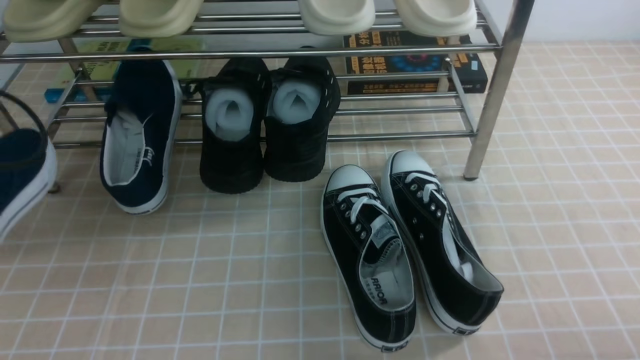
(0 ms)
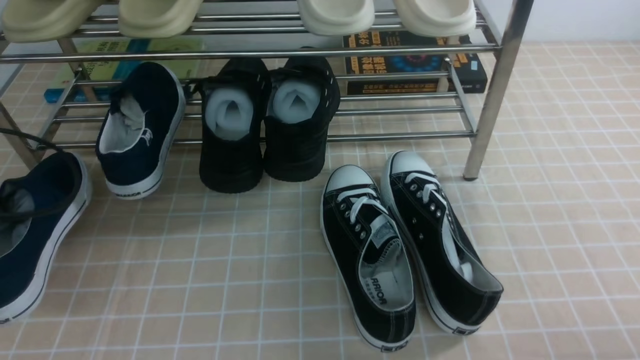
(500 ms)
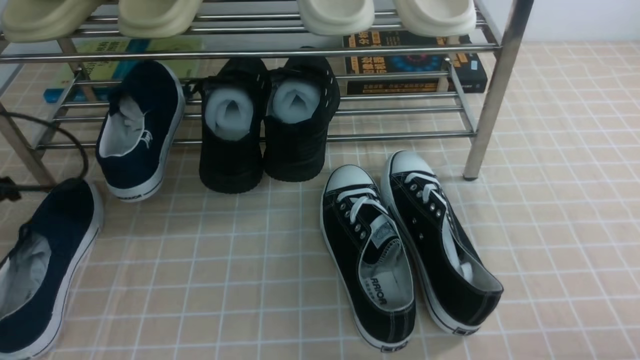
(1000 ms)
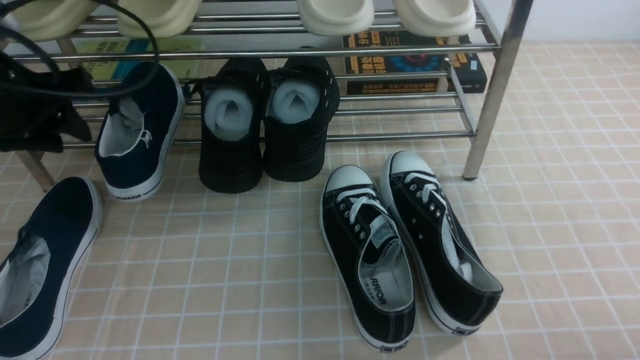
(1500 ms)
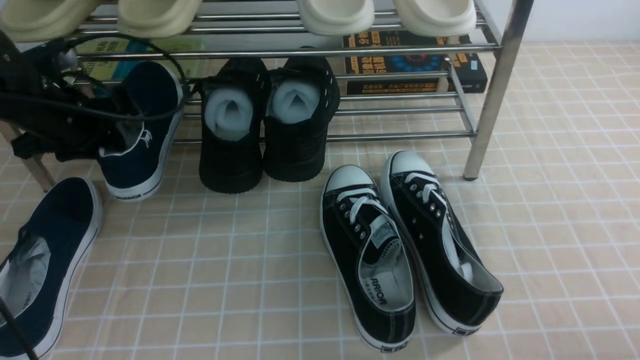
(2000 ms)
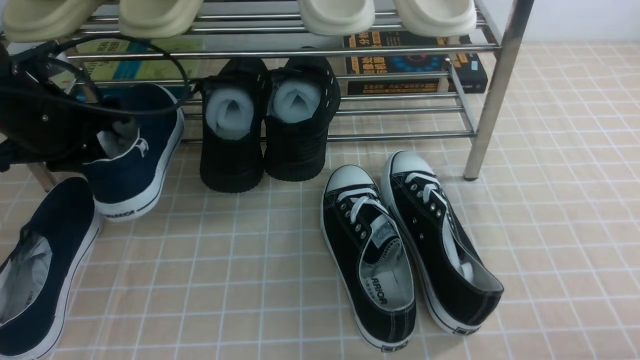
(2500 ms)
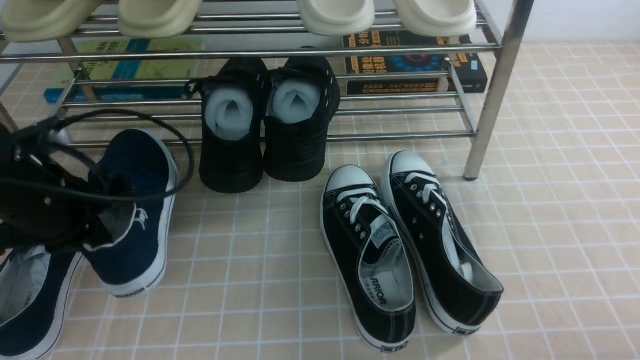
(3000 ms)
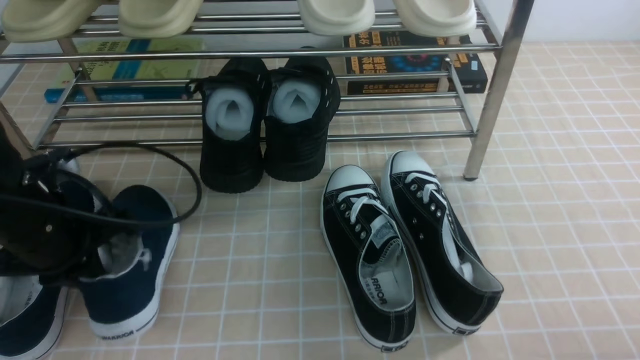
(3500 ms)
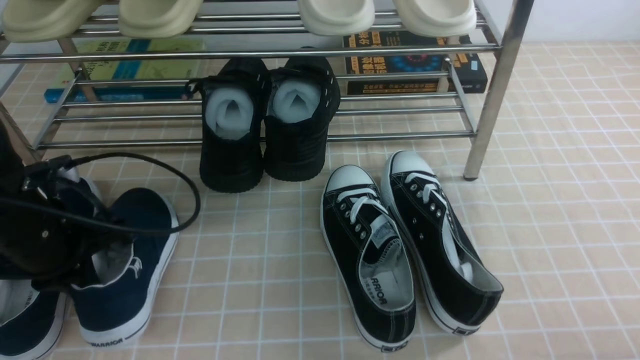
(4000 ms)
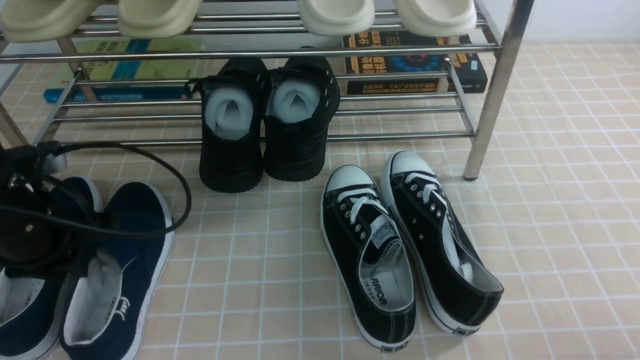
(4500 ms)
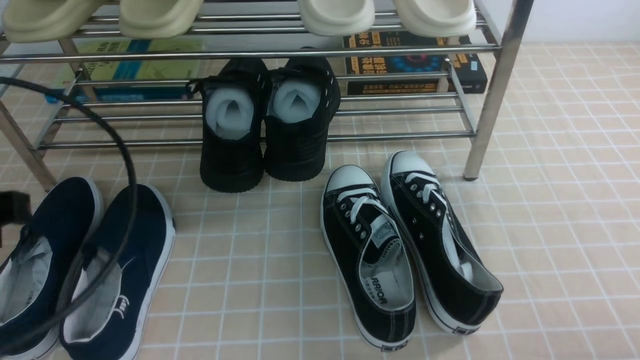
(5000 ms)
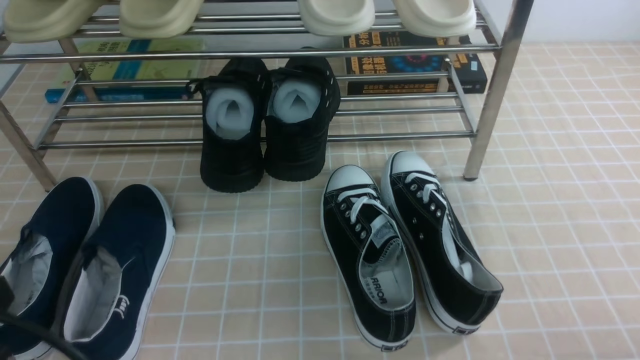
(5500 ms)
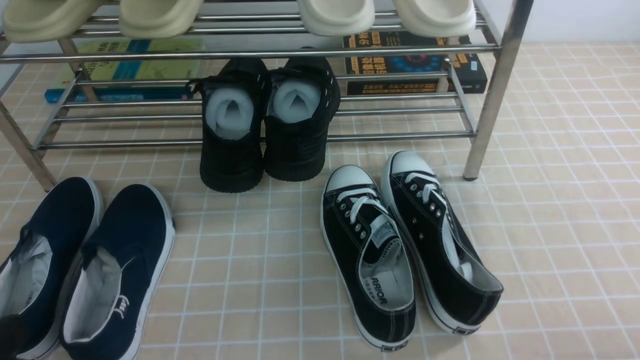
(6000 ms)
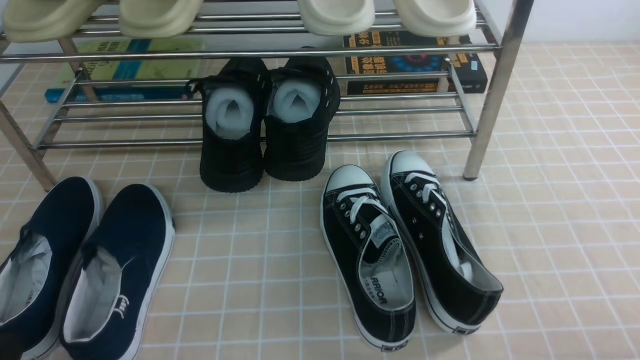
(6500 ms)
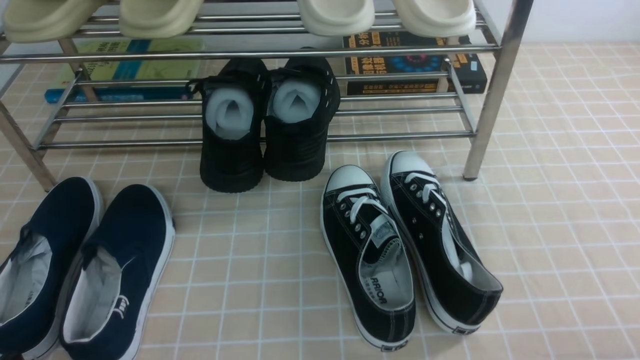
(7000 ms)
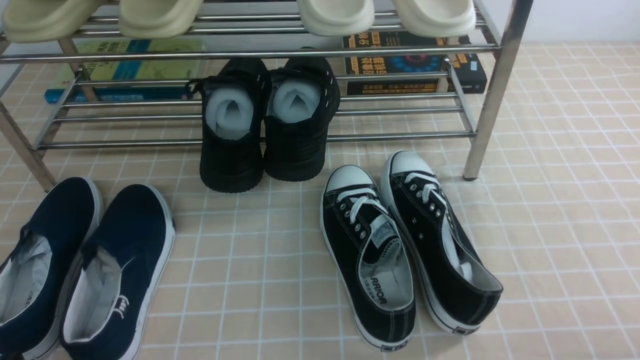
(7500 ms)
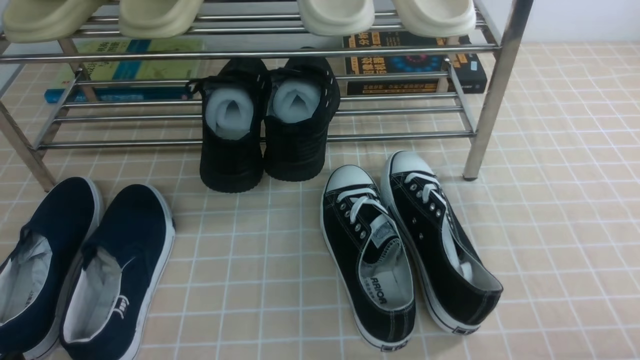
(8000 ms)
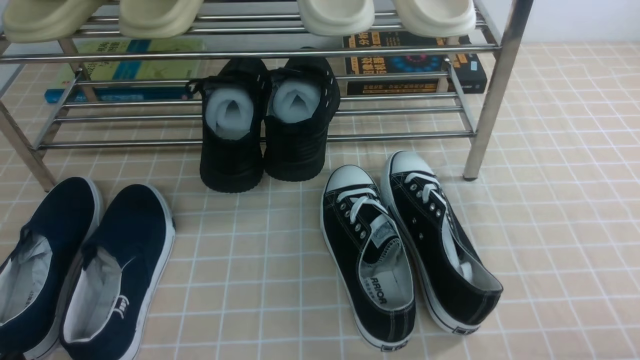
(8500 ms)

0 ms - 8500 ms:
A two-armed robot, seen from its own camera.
Step, 1500 ms - 2000 ms: use the left arm to clamp a shoe on the left side of the shoe rack.
Step, 2500 ms - 4000 ms: Use your left arm to remove the clamped shoe from the shoe rack and put it down.
0 ms - 2000 ms: The left gripper moves forward and downward, roughly 20 cm, and opens.
2000 ms - 4000 ms: The left gripper heads backward, covering some 15 cm, and closes.
4000 ms - 6500 ms: The left gripper moves backward, about 20 cm, and opens and closes again.

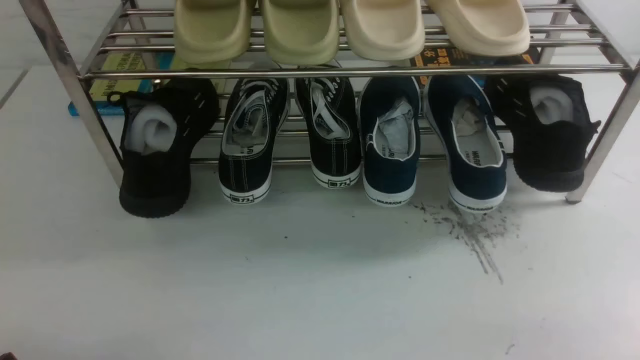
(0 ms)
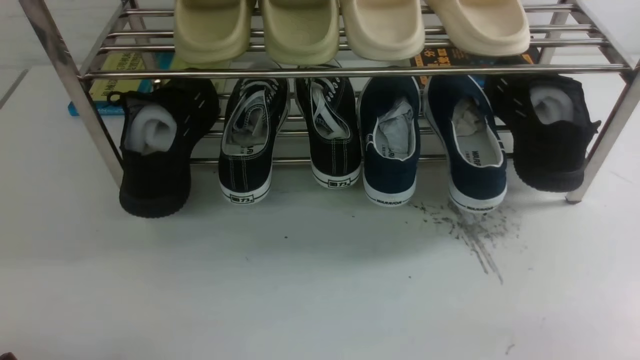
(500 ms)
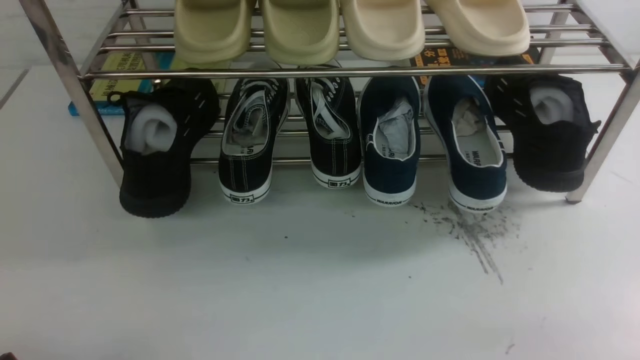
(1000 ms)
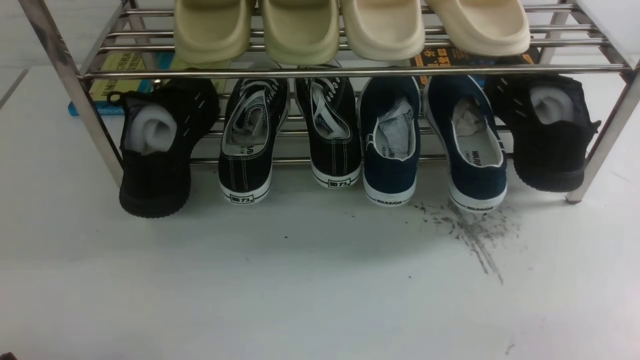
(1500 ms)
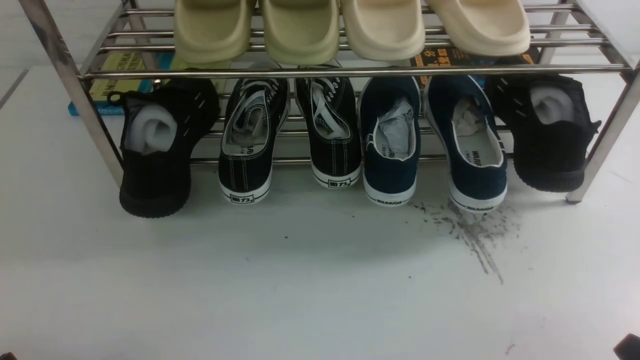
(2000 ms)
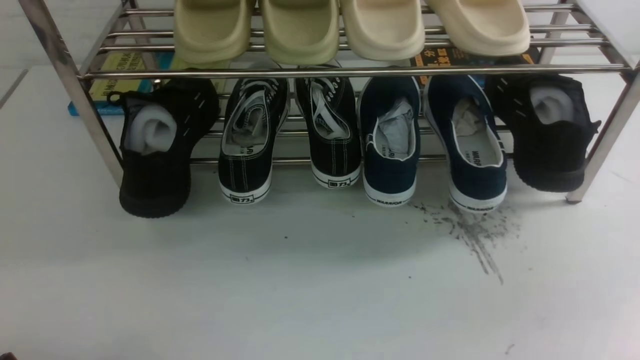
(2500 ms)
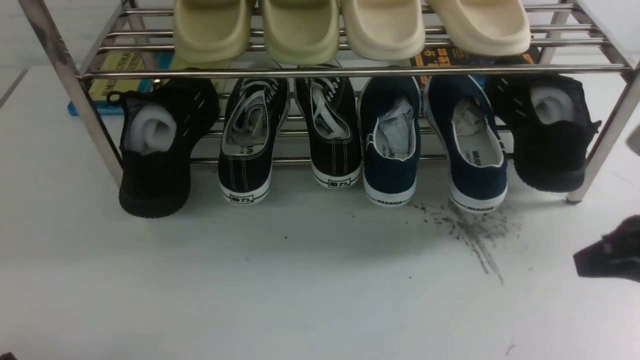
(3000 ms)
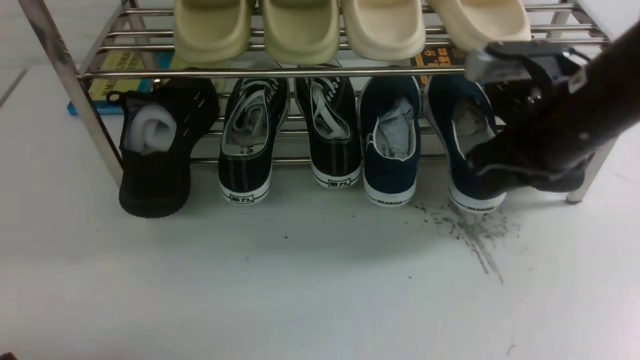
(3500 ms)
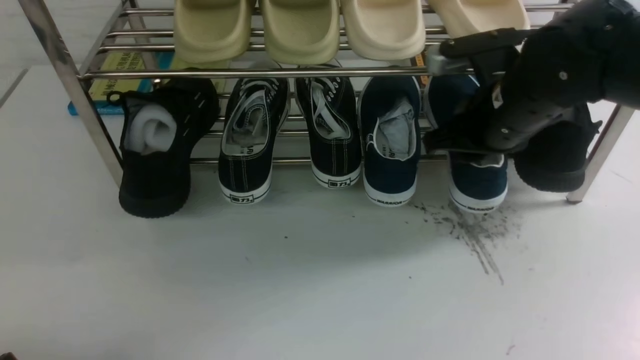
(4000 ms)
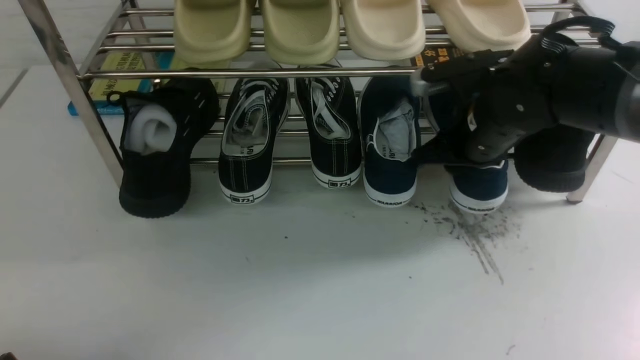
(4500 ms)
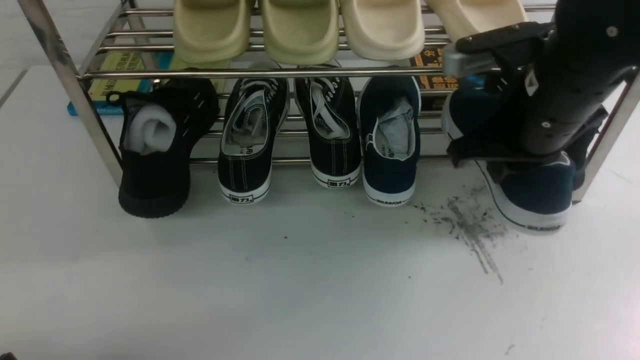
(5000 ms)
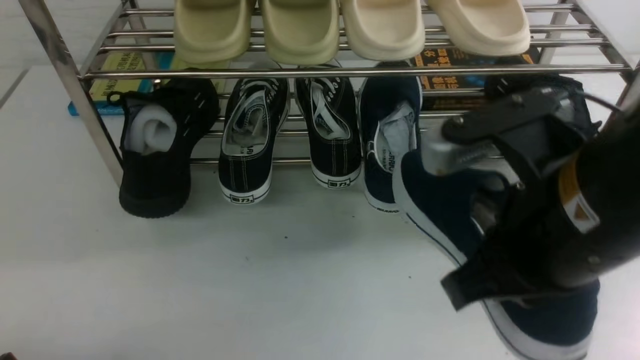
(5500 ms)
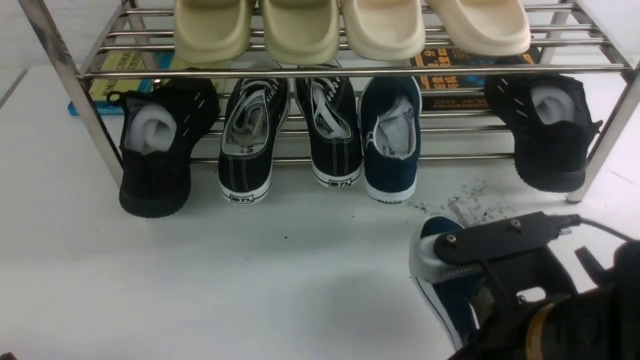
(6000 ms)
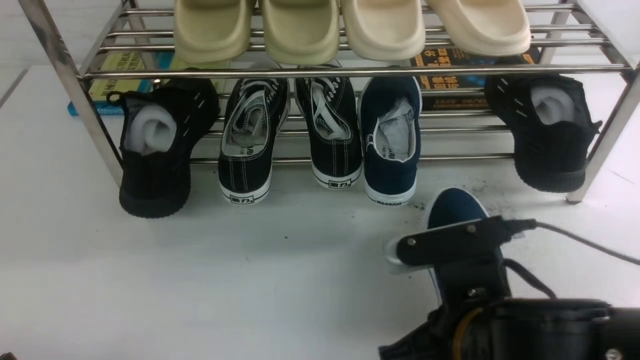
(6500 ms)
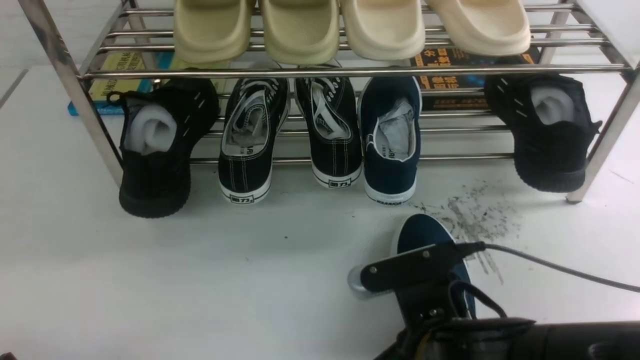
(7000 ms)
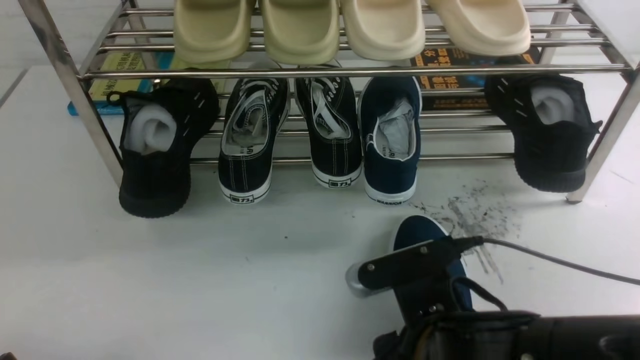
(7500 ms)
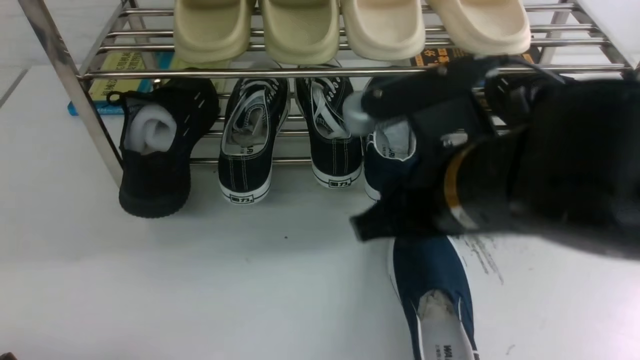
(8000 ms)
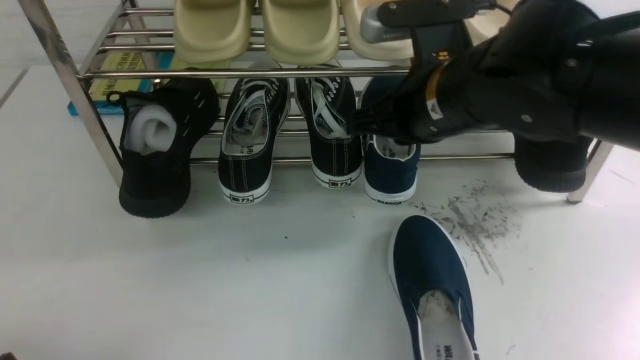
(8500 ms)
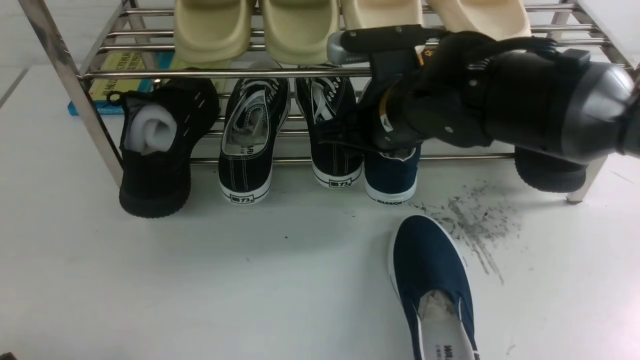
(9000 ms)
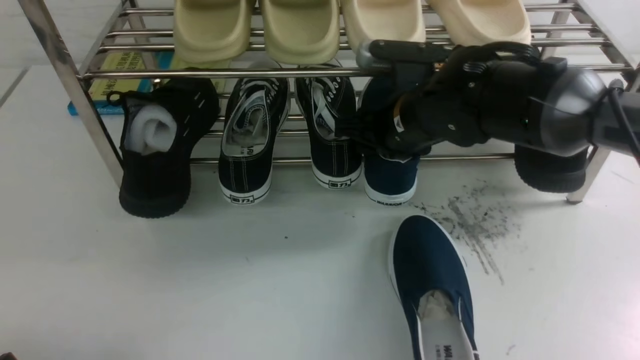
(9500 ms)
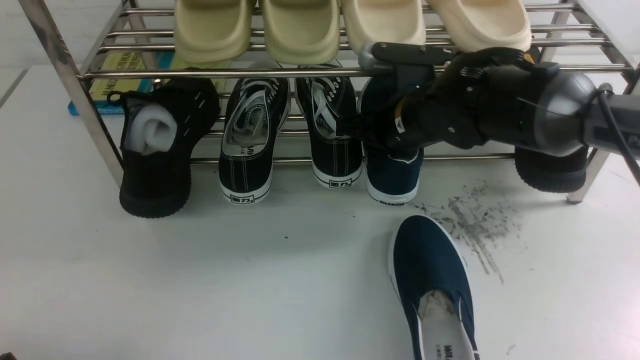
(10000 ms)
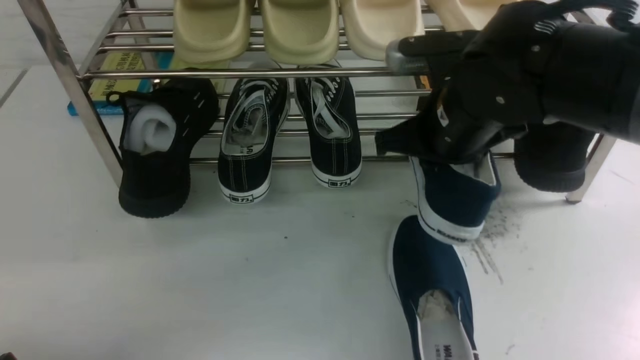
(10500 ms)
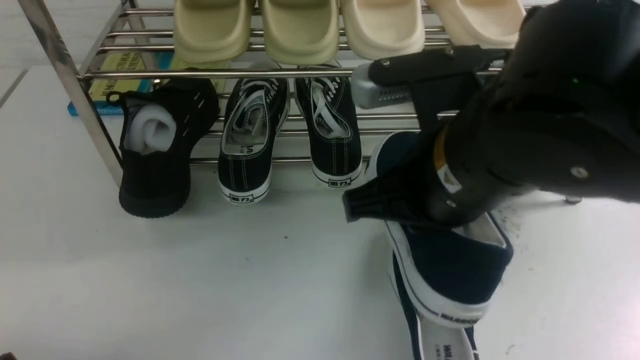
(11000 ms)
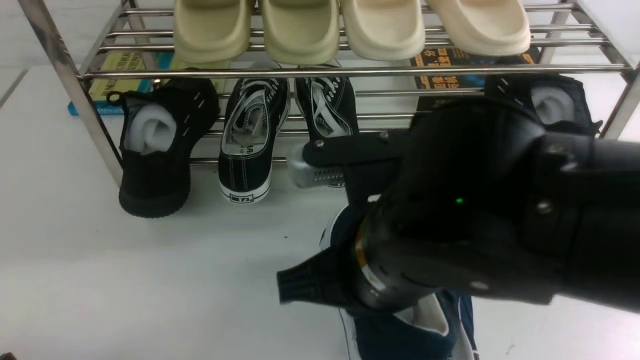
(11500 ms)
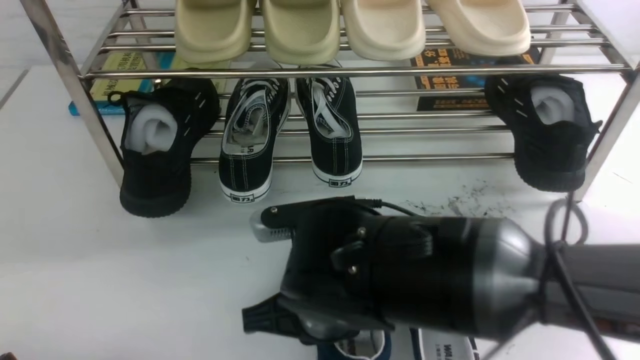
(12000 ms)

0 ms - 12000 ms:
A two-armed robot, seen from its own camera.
Step, 0 ms - 4500 ms: use the right arm to clamp a shoe on the right side of the shoe rack.
Step, 5000 ms - 7500 ms: use the right arm to take out the clamped shoe from the shoe rack and put it down.
Step, 8000 ms - 10000 ms: use the right arm to clamp a shoe on the right side of the shoe rack.
2000 ms - 4000 ms: The right gripper moves forward and to the left, approximately 30 cm, and closes, then opens again.
4000 ms - 6000 ms: The right gripper moves backward, roughly 25 cm, and closes.
6000 ms - 8000 ms: The right gripper heads forward, covering roughly 10 cm, and opens.
8000 ms - 10000 ms: The right gripper heads forward and downward, covering about 20 cm.
10000 ms - 12000 ms: The right gripper goes about 20 cm backward and to the left.
